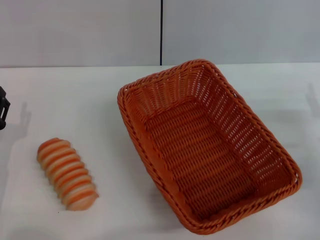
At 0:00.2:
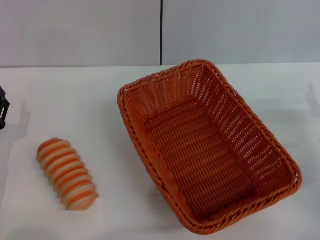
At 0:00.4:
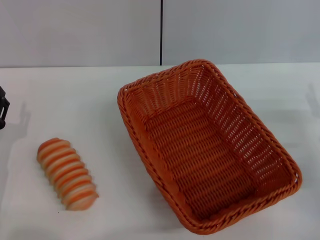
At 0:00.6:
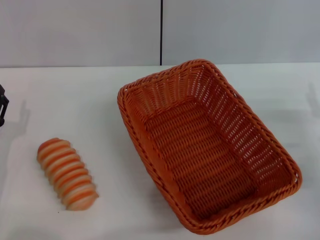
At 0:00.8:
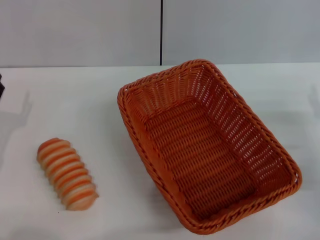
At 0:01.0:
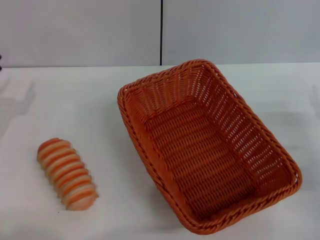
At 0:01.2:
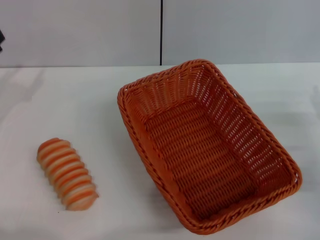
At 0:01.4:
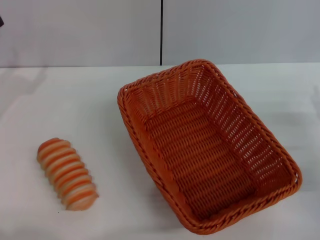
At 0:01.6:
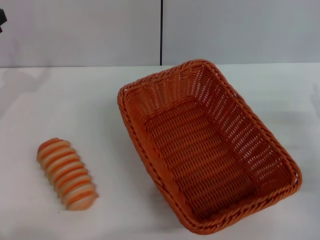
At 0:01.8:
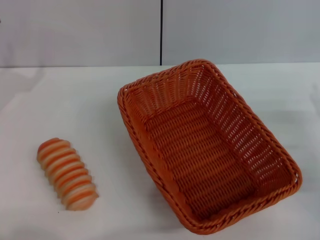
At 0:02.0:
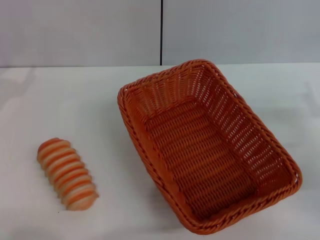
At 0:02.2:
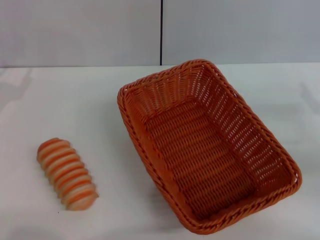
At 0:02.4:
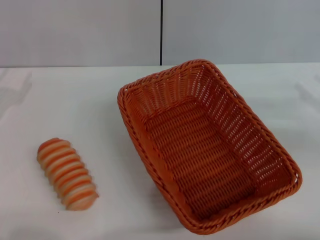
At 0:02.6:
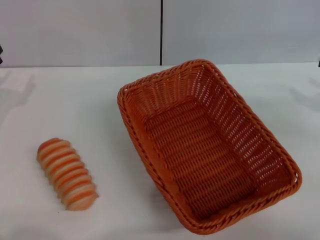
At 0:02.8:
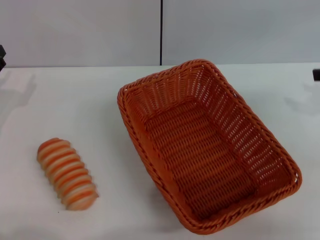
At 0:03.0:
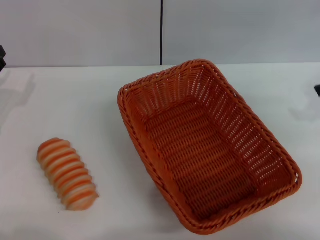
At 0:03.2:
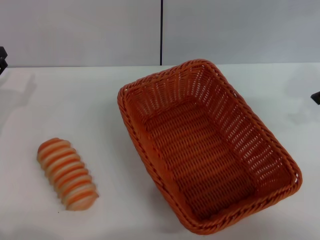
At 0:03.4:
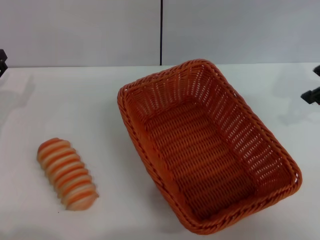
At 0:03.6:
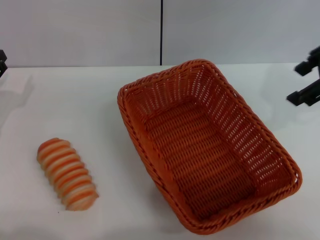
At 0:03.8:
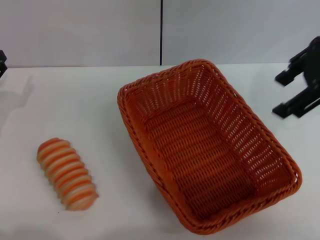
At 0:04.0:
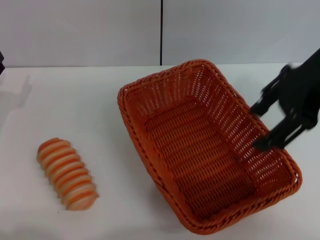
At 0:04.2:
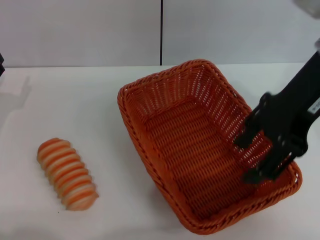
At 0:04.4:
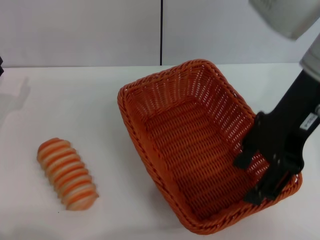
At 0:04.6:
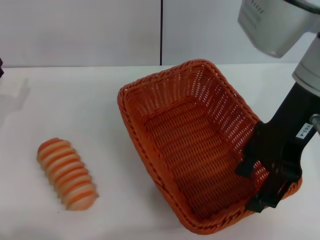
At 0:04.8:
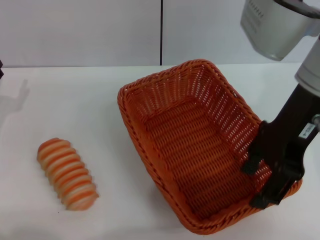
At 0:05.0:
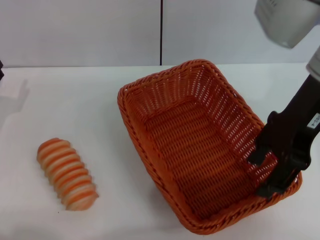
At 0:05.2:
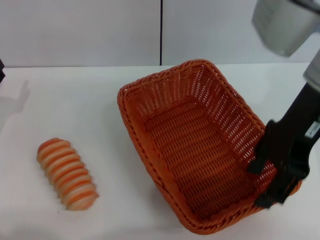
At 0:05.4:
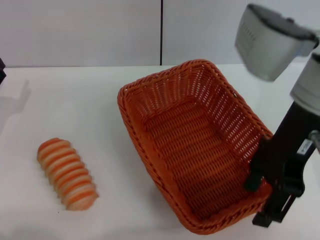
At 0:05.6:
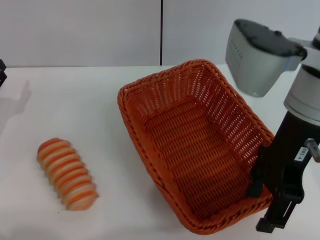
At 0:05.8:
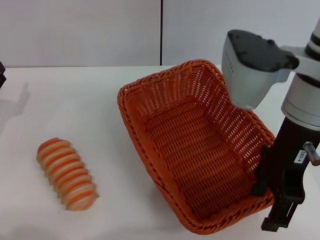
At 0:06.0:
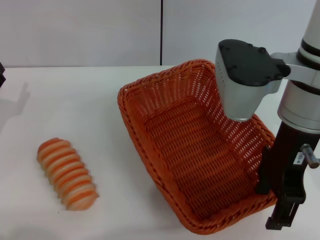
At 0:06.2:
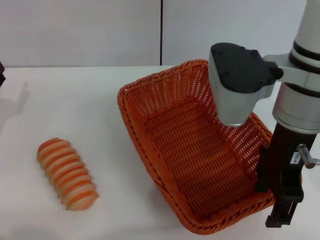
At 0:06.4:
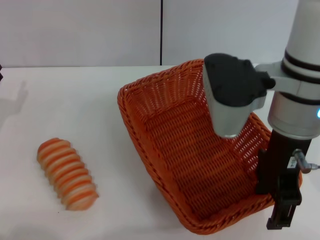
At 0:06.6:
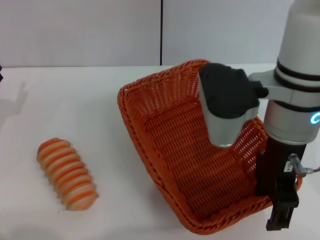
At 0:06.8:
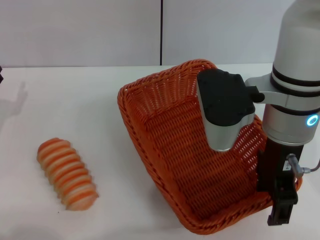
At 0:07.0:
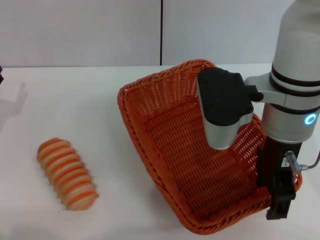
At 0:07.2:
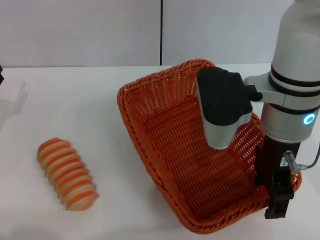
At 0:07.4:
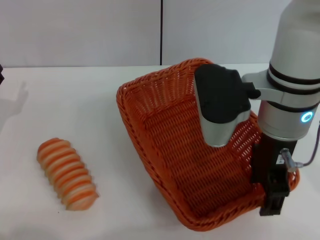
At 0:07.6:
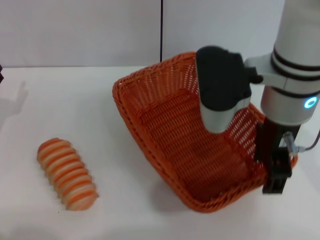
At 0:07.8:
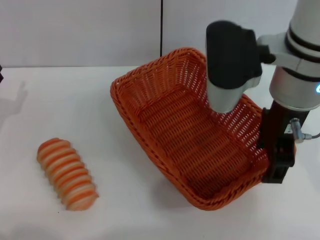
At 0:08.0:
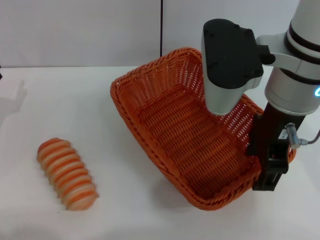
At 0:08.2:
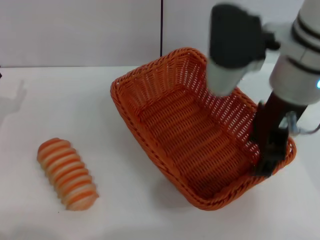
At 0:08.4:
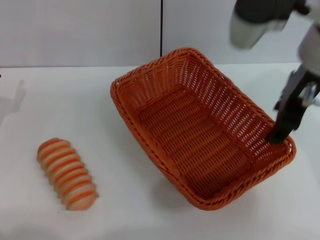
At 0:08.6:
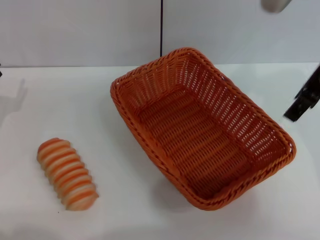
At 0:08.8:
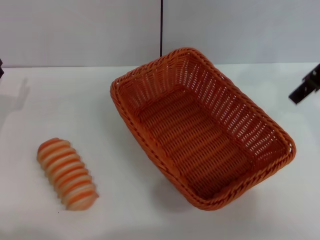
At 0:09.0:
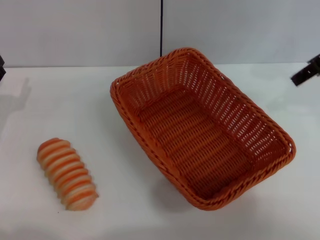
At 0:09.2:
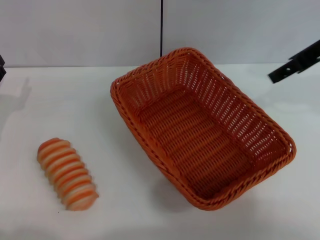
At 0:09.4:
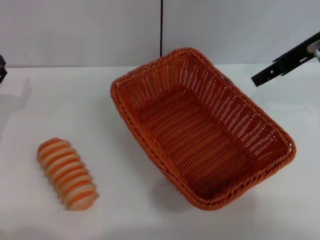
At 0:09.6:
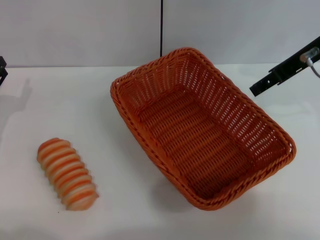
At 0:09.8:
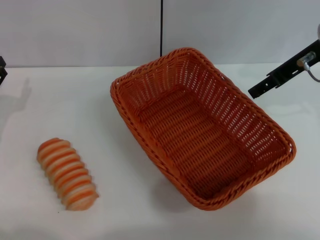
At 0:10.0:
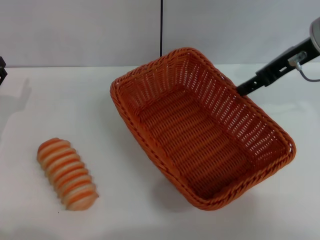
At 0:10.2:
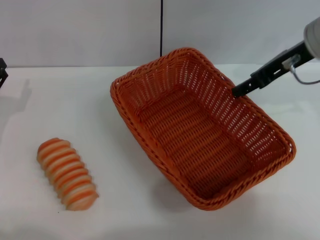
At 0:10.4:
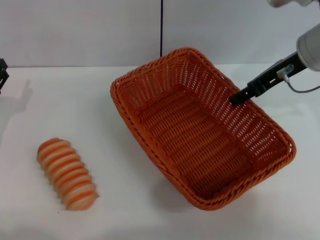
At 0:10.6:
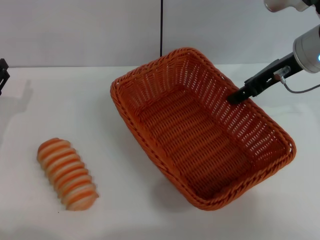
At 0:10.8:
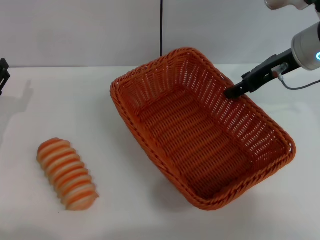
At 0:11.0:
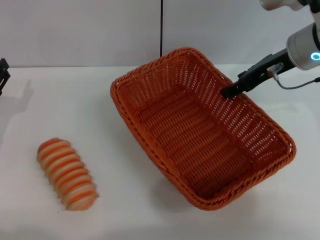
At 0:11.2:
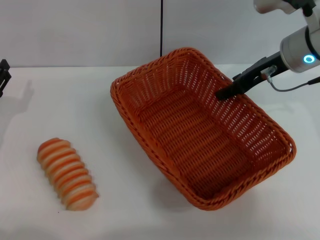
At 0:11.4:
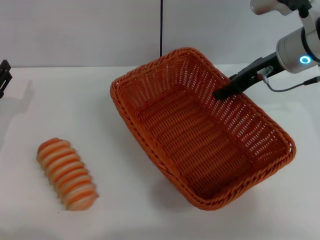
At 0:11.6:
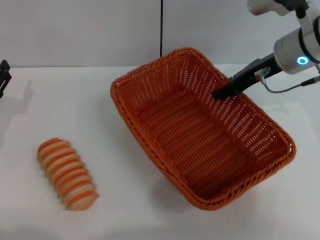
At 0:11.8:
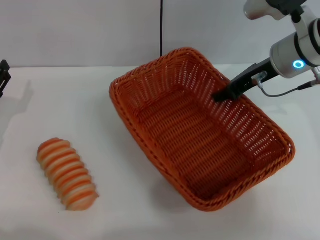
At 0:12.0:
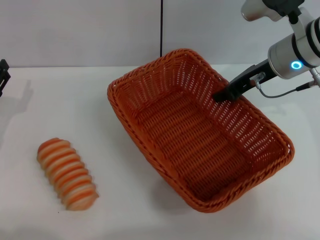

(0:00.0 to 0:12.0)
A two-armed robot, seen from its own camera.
0:00.0 - 0:01.6: The left gripper shifts some 15 cm upward, forward and to the left.
0:01.6 - 0:03.0: The right gripper goes about 20 cm upward and forward.
0:03.0 - 0:04.4: The right gripper goes about 20 cm to the left.
0:04.4 - 0:06.0: The right gripper shifts by approximately 5 cm.
0:07.6 - 0:09.0: The right gripper is displaced to the right and upward by approximately 15 cm.
0:09.0 - 0:10.4: The right gripper heads downward, covering approximately 10 cm.
0:10.4 - 0:12.0: The right gripper closes its fingers.

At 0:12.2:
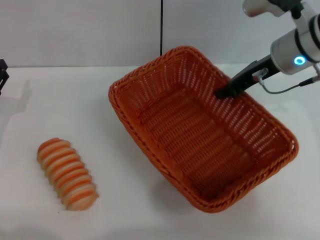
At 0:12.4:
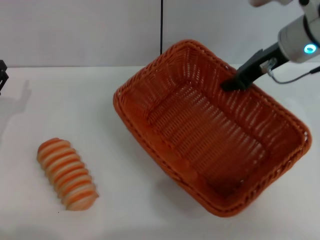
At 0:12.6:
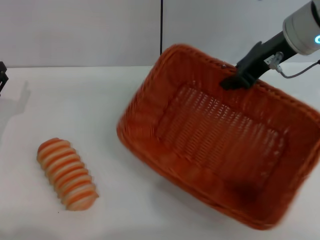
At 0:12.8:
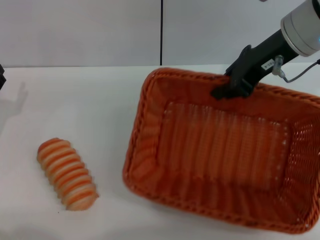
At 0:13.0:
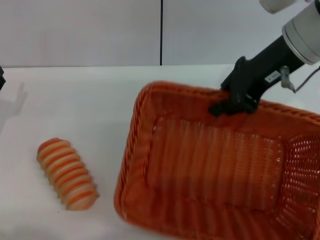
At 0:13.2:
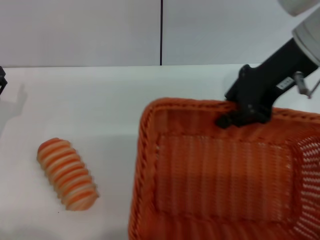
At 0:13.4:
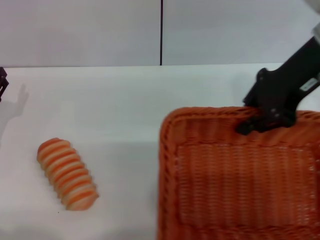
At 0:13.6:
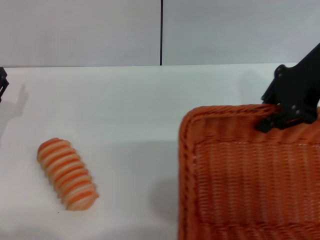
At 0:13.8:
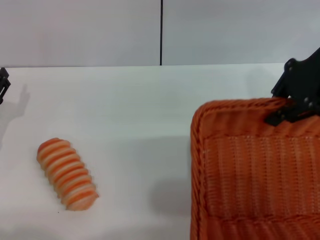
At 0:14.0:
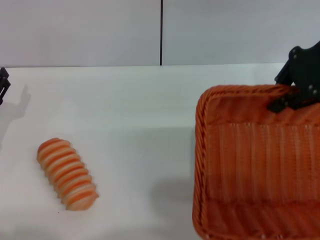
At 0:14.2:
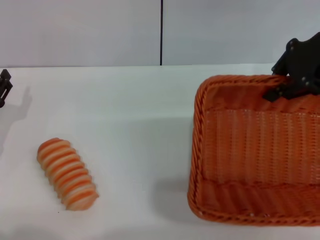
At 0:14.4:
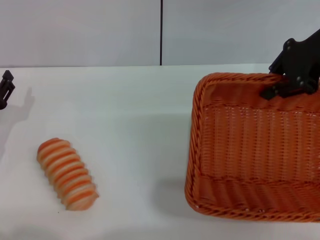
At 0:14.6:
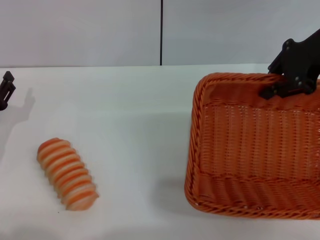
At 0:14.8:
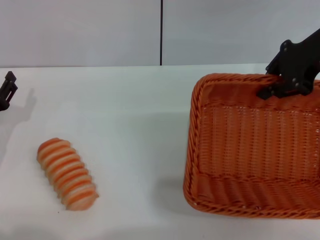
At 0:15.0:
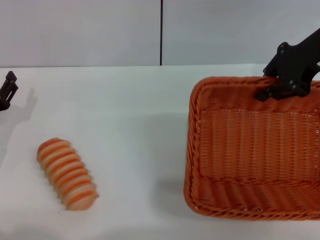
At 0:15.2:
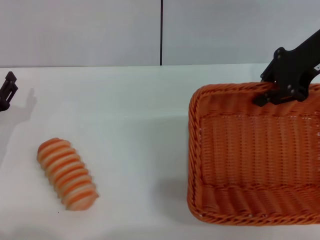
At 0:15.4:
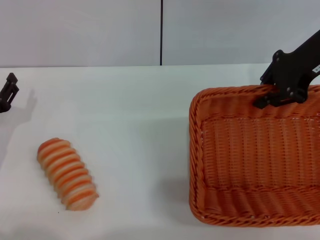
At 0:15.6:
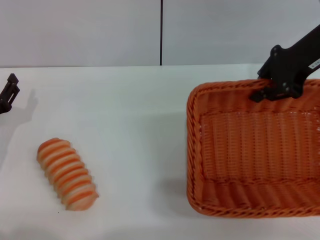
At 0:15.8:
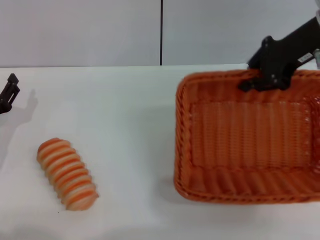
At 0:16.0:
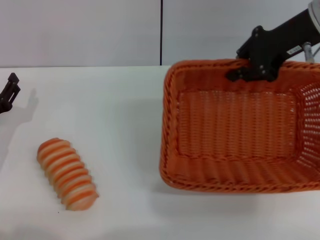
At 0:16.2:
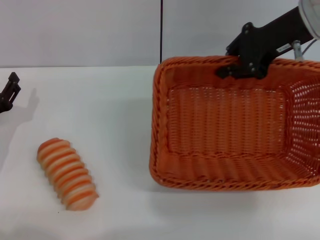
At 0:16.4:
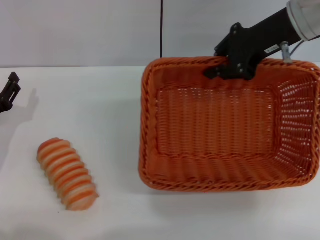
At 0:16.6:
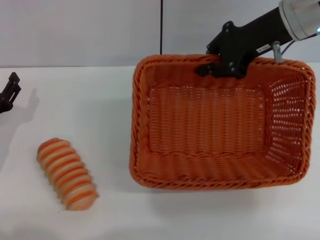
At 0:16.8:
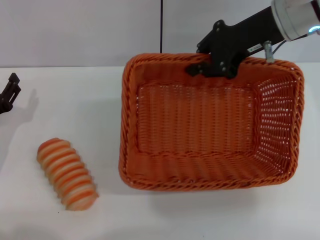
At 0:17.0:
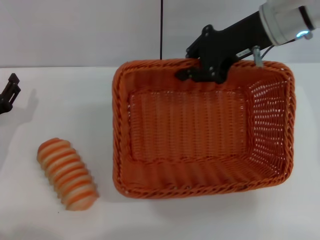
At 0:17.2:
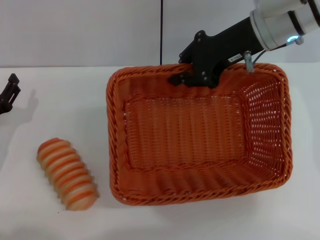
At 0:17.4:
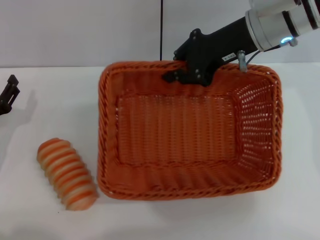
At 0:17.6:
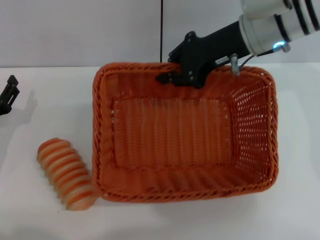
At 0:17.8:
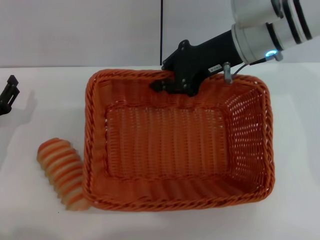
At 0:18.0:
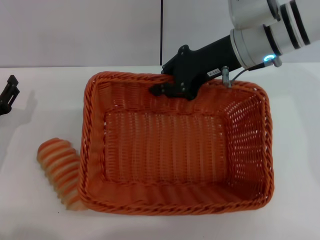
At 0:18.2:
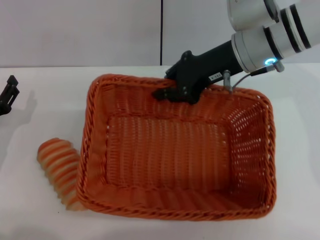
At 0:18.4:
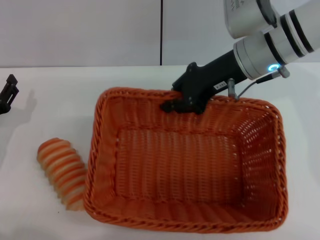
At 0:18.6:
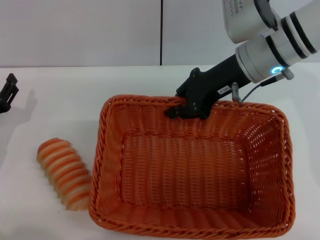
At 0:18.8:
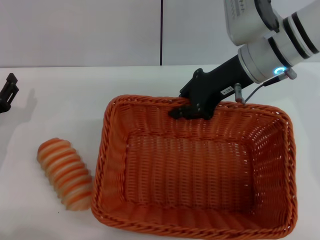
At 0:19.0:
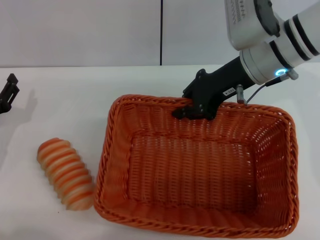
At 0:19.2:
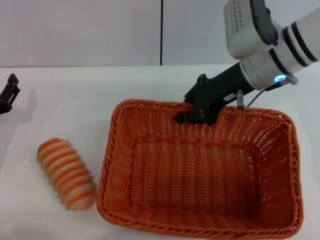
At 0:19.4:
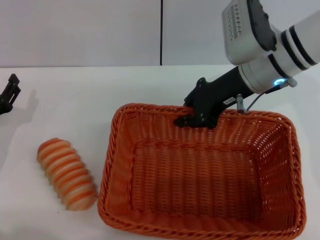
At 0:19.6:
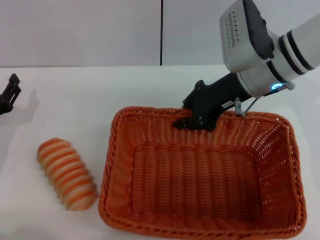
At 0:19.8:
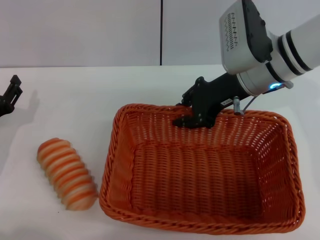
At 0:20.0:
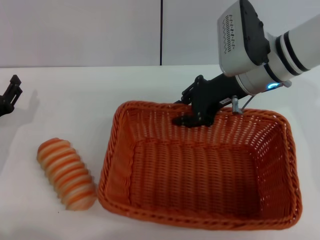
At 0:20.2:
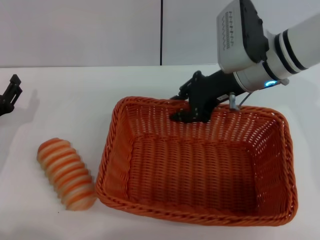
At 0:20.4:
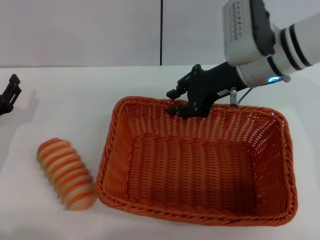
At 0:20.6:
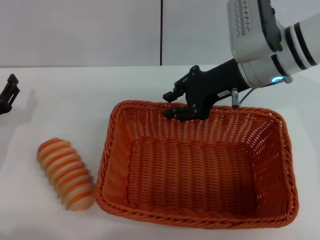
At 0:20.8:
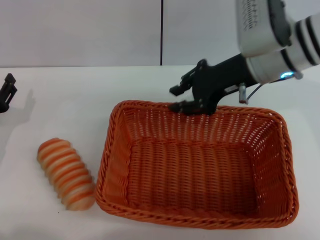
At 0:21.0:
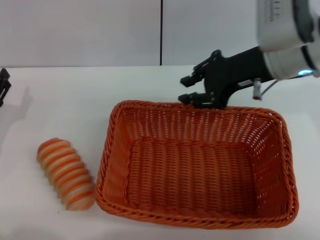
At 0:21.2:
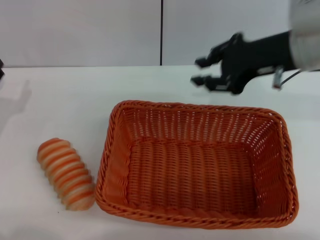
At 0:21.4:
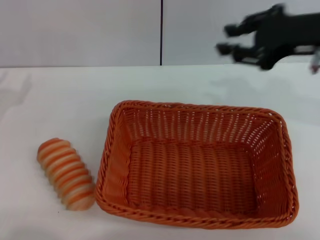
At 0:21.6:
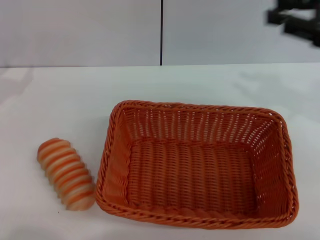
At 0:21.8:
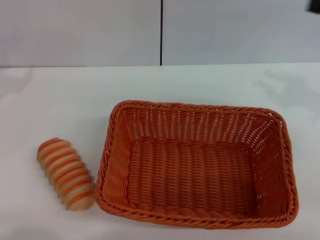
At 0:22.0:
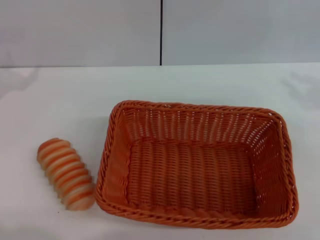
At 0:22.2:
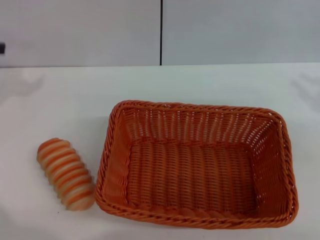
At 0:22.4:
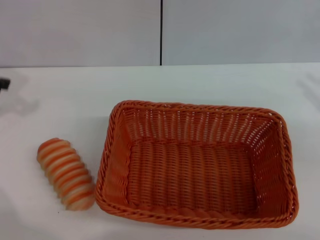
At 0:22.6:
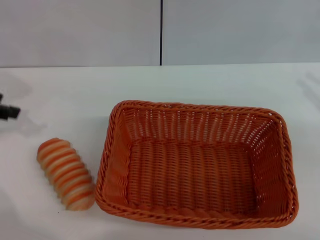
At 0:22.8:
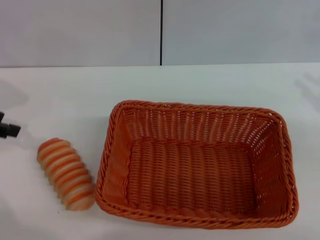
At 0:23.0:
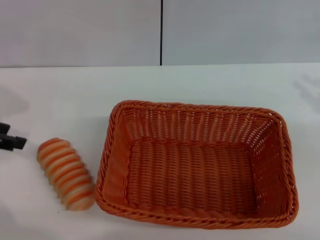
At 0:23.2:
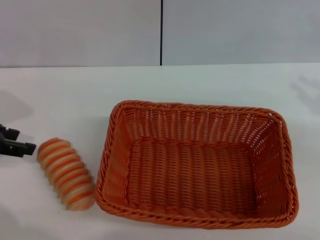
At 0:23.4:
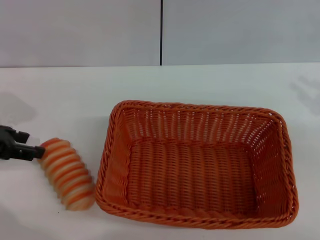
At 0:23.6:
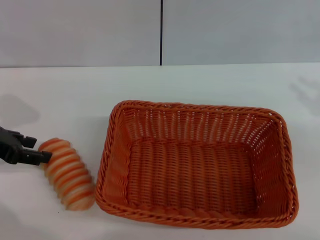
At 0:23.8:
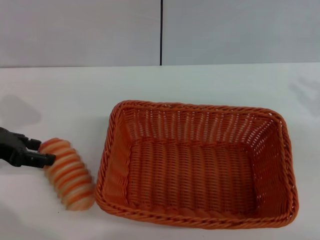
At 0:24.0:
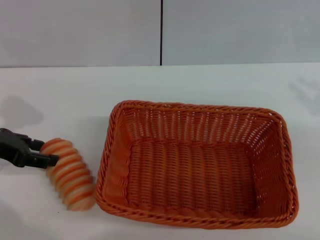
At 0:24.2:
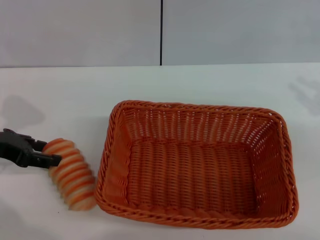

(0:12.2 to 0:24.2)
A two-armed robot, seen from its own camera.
Step, 0:12.8 - 0:21.0: Place the light basket in the center of view with the right gripper.
0:12.2 - 0:13.8: The right gripper moves upward, some 10 cm.
0:13.8 - 0:15.2: The right gripper moves roughly 5 cm.
0:15.2 - 0:16.6: The right gripper heads to the left, covering about 5 cm.
0:16.6 - 0:18.2: The right gripper ends up about 5 cm from where it was.
0:19.8 - 0:21.2: The right gripper is displaced upward by some 10 cm.
0:21.2 - 0:22.6: The left gripper travels upward by roughly 15 cm; the right gripper shifts roughly 20 cm to the right and backward.
0:22.6 - 0:24.2: The left gripper shifts approximately 10 cm downward.
